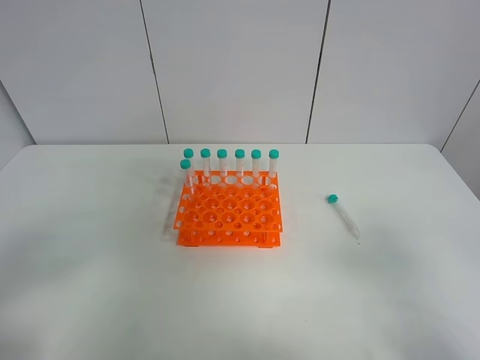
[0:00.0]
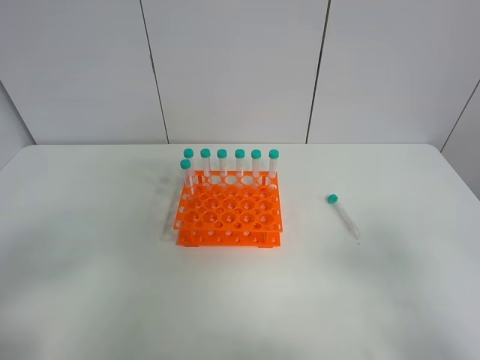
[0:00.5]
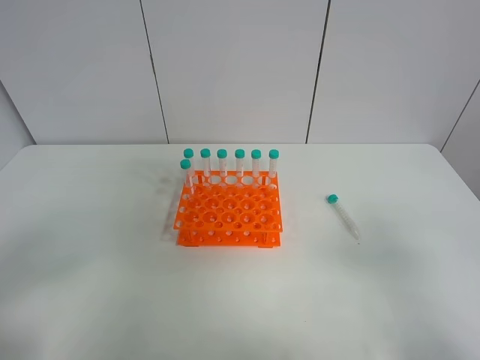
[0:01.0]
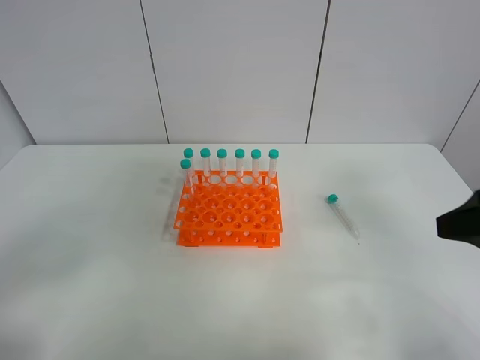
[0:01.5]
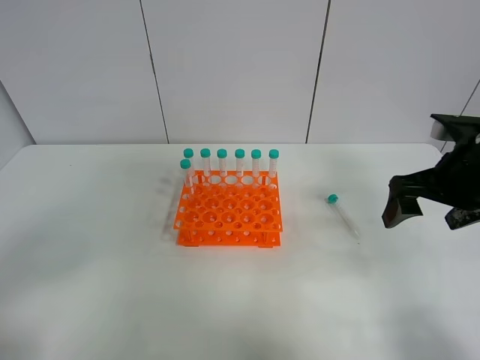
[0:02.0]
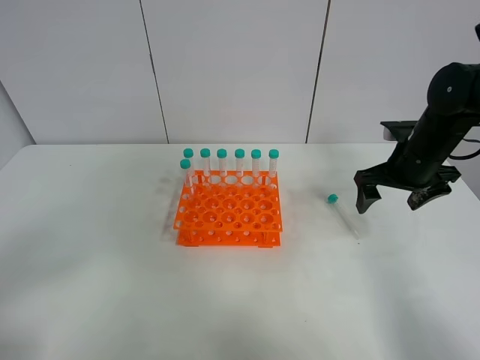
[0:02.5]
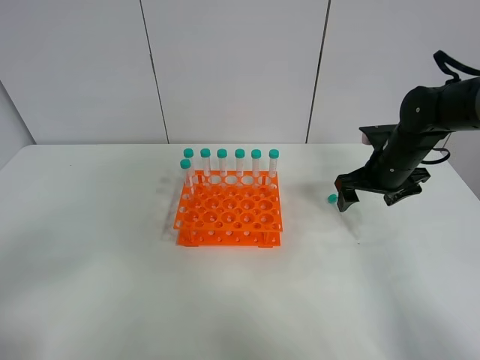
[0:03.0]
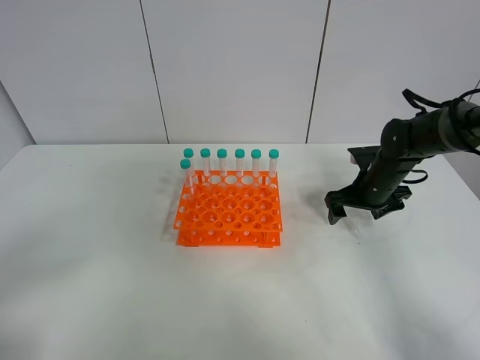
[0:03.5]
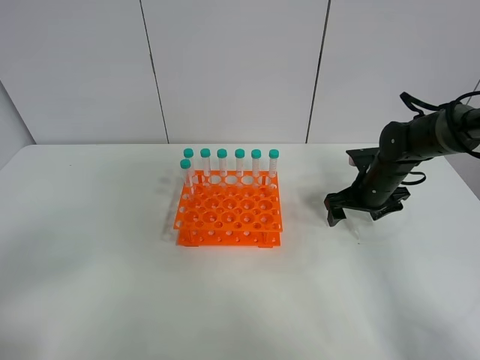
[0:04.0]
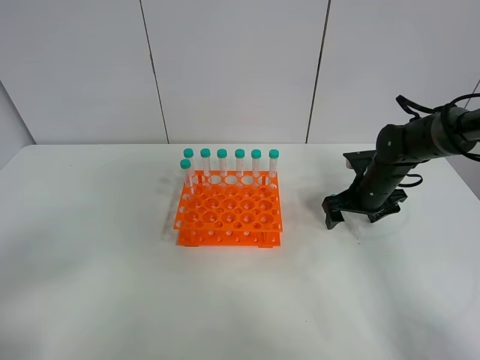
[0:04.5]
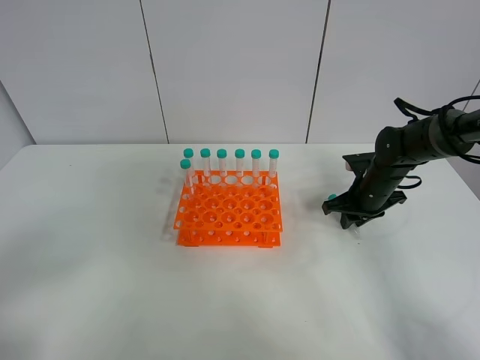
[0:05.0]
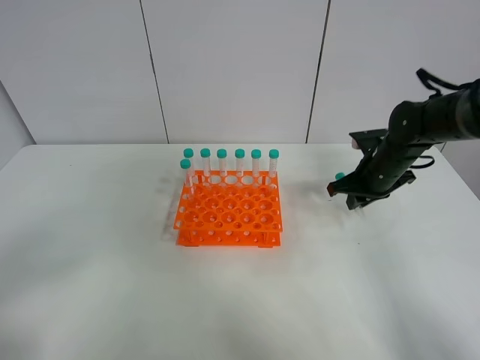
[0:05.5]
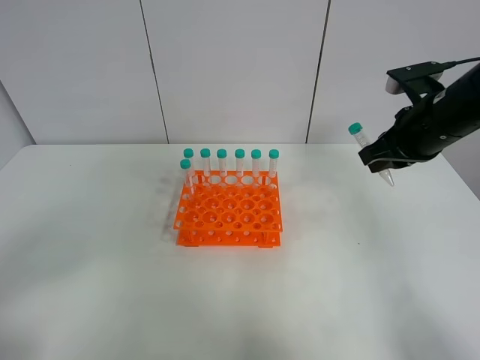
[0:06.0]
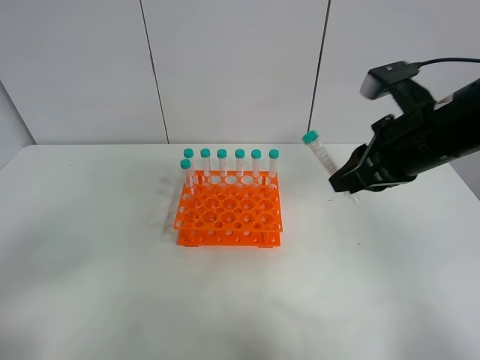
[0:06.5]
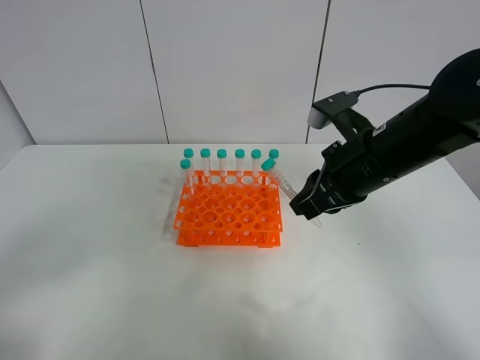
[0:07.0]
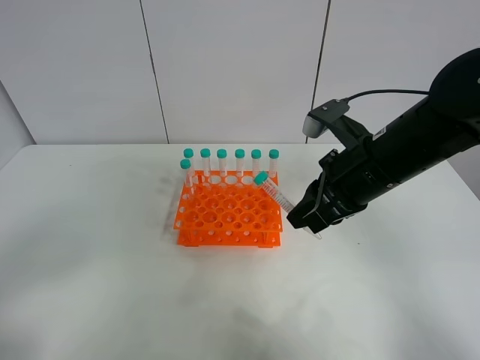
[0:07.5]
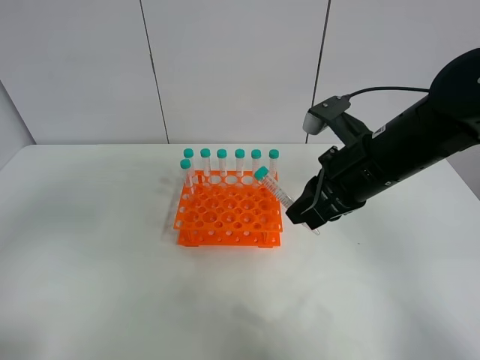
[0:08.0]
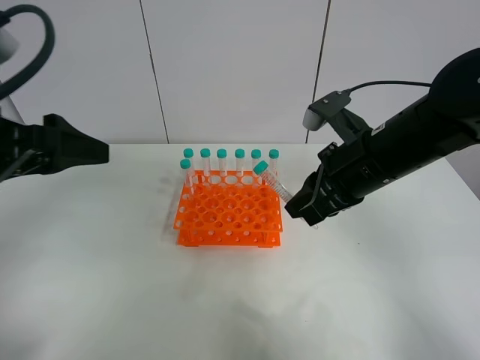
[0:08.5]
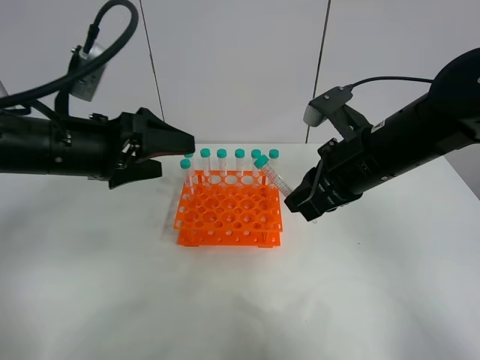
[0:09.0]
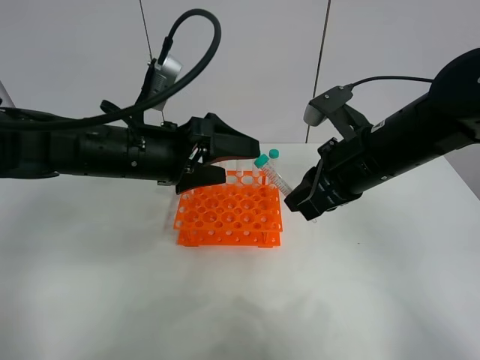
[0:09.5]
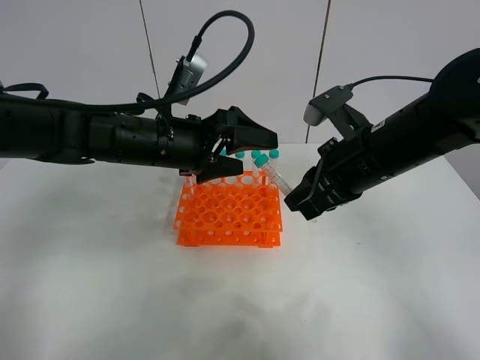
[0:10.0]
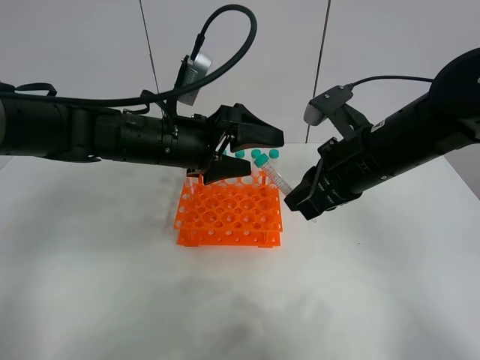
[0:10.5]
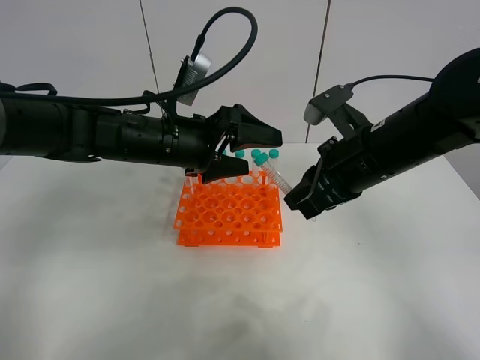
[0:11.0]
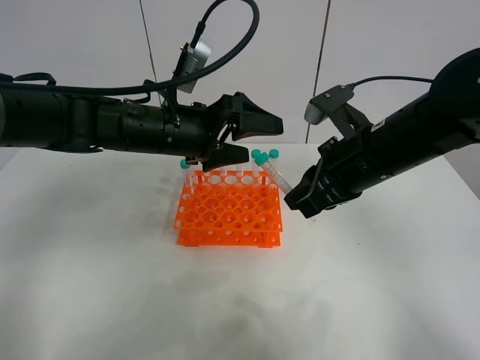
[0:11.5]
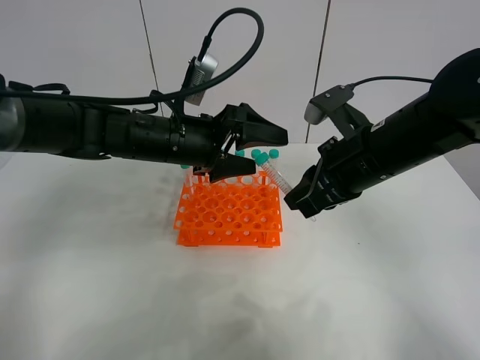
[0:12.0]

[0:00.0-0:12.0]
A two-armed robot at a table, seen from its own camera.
Task of the whole recording: Put the test tube on the table back onto the test tube rack.
Step, 0:00.0 to 0:05.5: Pick up the test tube with the right gripper.
0:00.0 to 0:02.0: The right gripper moves forward, about 25 cm.
0:02.0 to 0:04.0: The right gripper shifts about 20 cm downward and forward.
0:04.0 to 0:06.0: The right gripper is displaced upward and backward by about 20 cm, and closes up.
0:06.0 to 0:08.0: The right gripper heads to the left, covering roughly 10 cm, while the left gripper moves upward and forward, approximately 10 cm.
0:08.0 to 0:10.0: The left gripper shifts some 35 cm forward, to the right and downward.
0:10.0 to 0:12.0: The grippers make only small movements.

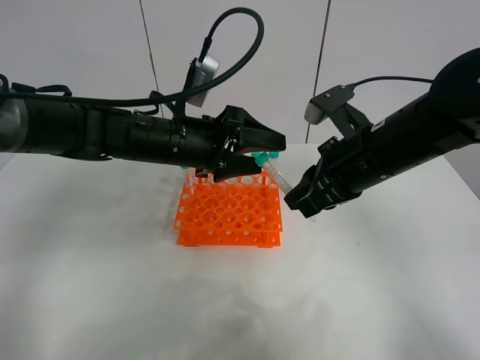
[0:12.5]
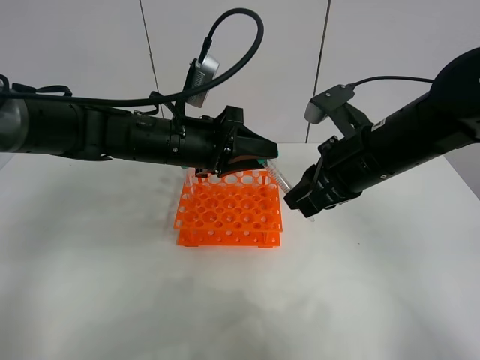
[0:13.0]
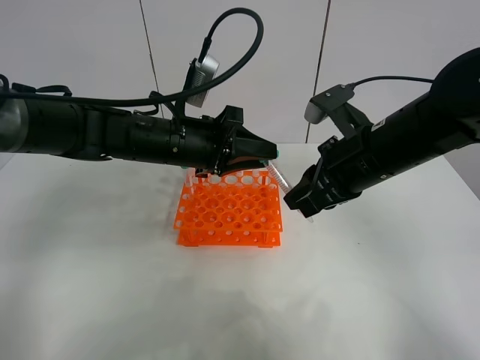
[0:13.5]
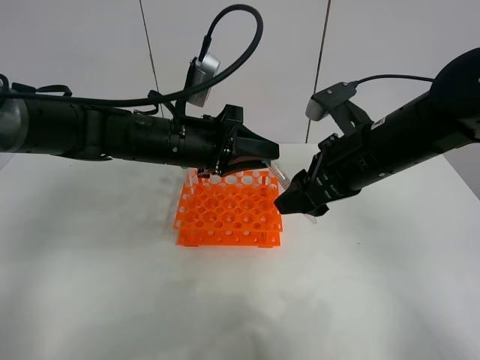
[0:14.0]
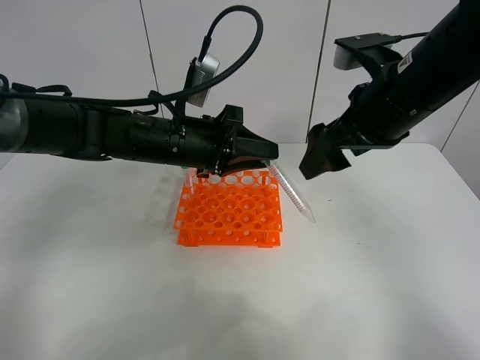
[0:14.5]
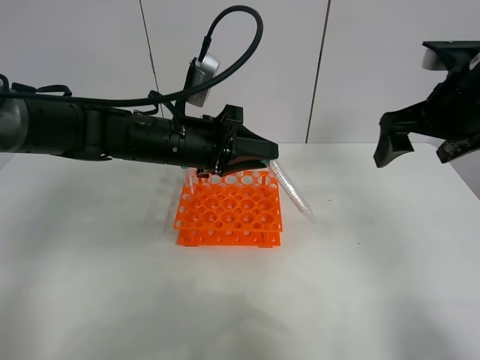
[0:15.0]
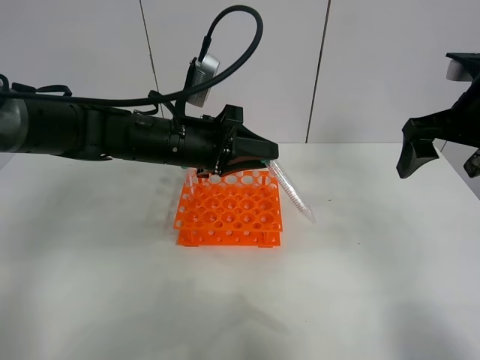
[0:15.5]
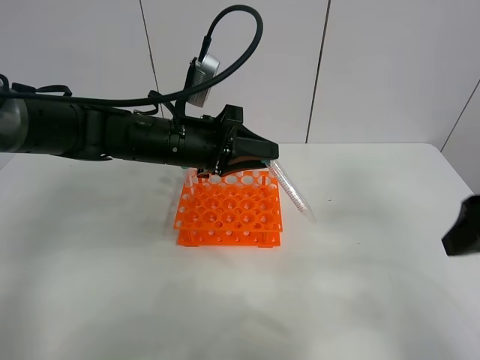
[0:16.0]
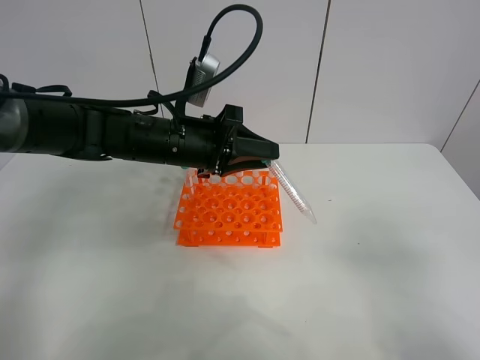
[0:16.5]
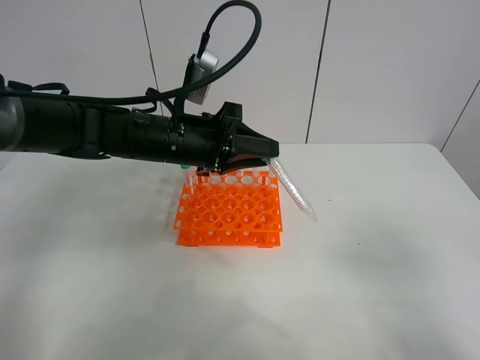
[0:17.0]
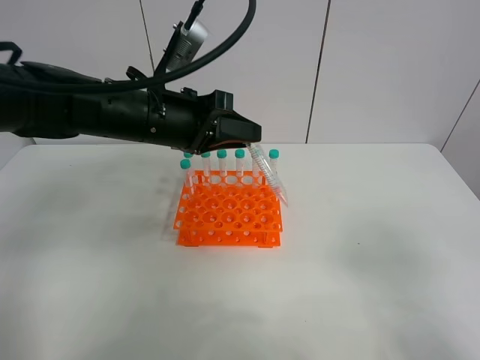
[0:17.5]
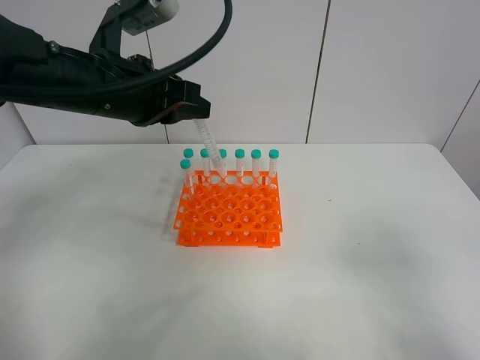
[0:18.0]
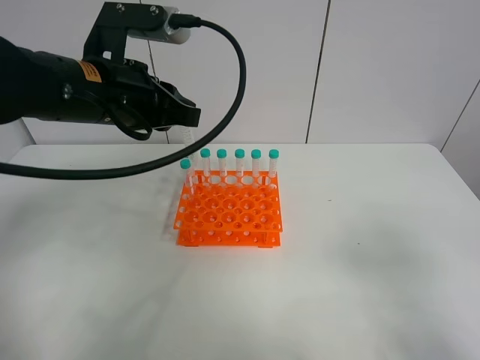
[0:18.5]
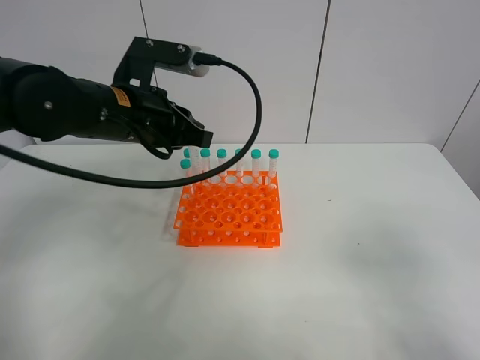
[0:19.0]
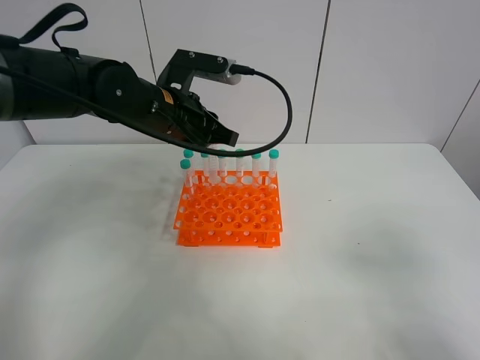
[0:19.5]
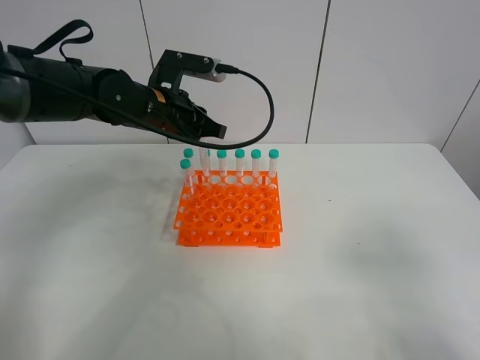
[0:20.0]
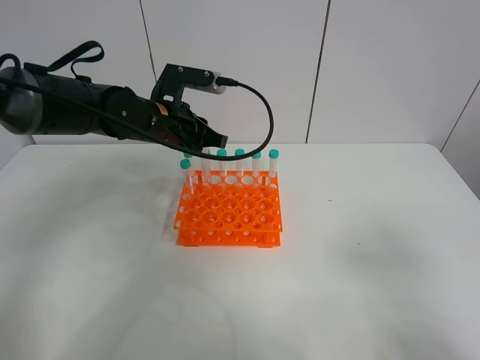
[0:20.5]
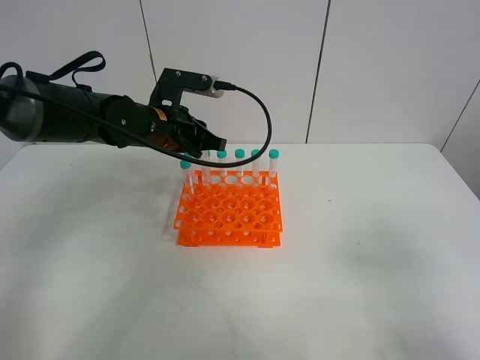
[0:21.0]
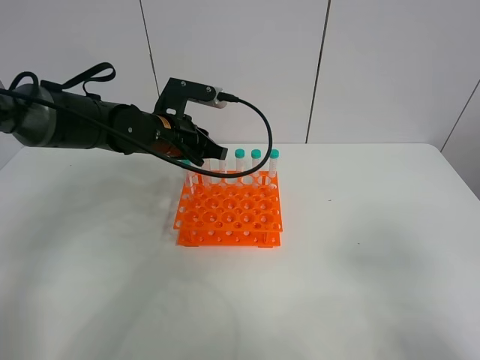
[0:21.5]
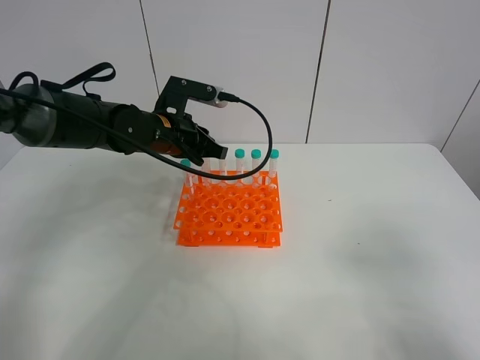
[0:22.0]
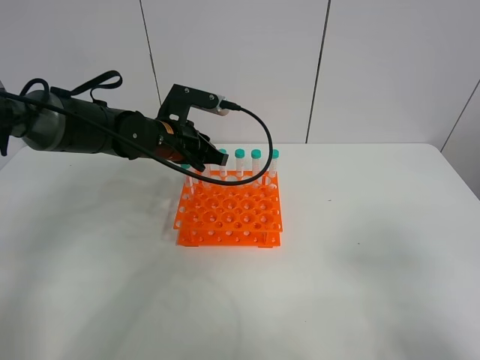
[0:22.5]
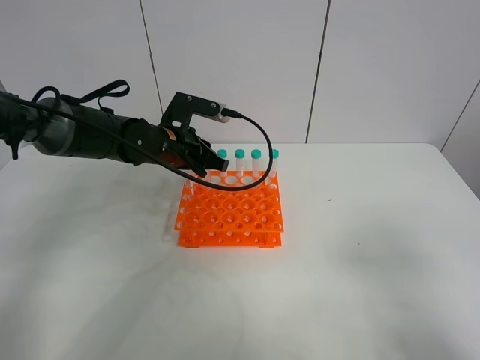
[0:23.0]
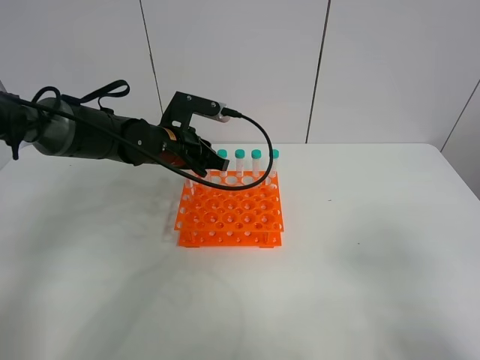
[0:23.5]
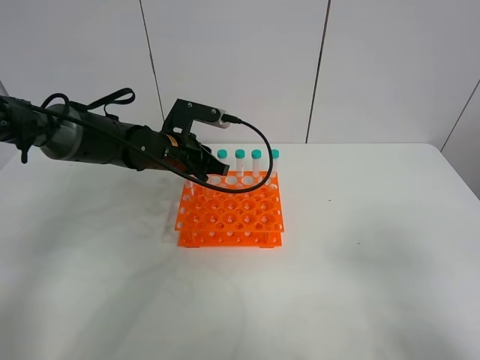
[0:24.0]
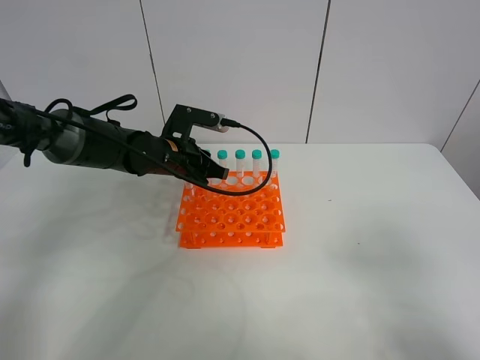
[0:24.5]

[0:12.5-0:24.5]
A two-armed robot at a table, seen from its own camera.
Task of the whole recording: Put the test tube on the table back onto the test tube rack.
Step, 0:12.5 to 0:14.5: Move the test tube from the right gripper to the left gripper.
0:12.5 to 0:14.5: The right gripper is displaced upward by about 5 cm, and opens. The left gripper closes.
0:14.5 to 0:16.5: The right gripper shifts approximately 30 cm backward and to the right.
0:16.5 to 0:18.5: The left gripper is displaced upward and to the left by some 10 cm.
0:18.5 to 0:20.5: The left gripper moves forward and downward, some 15 cm.
0:20.5 to 0:22.5: The grippers stay close to where they were, moving slightly.
0:22.5 to 0:24.5: The grippers move only a little.

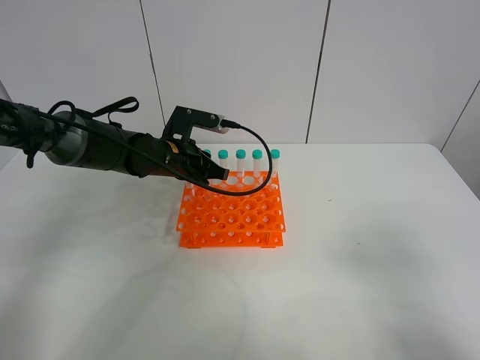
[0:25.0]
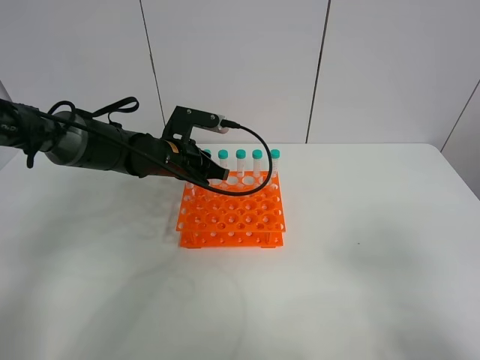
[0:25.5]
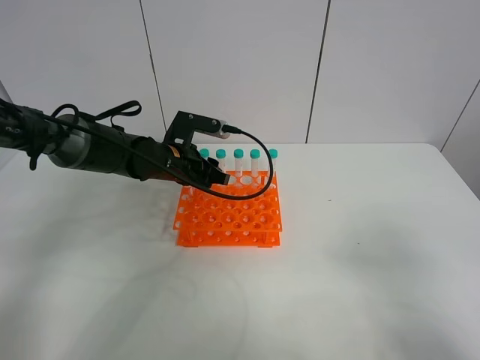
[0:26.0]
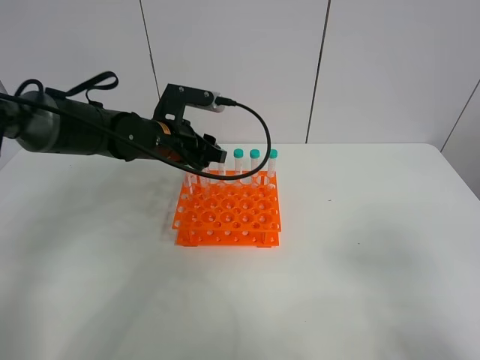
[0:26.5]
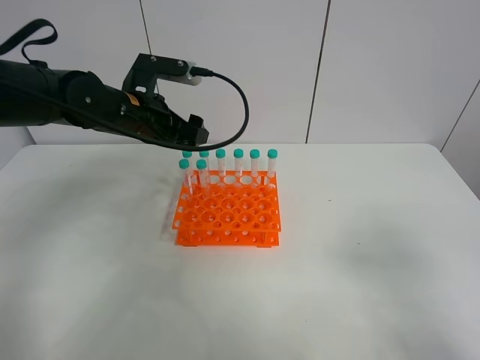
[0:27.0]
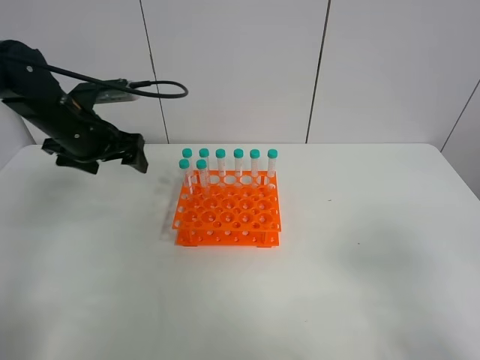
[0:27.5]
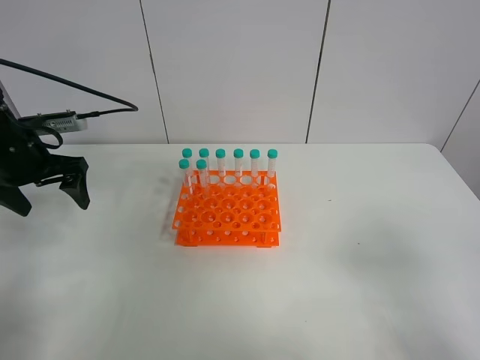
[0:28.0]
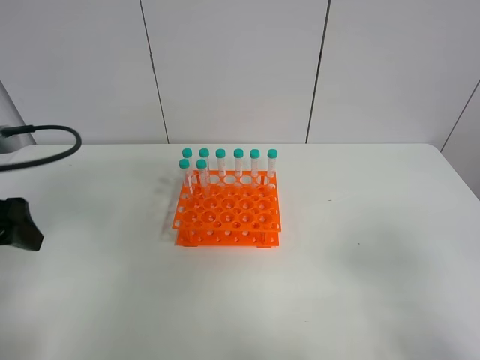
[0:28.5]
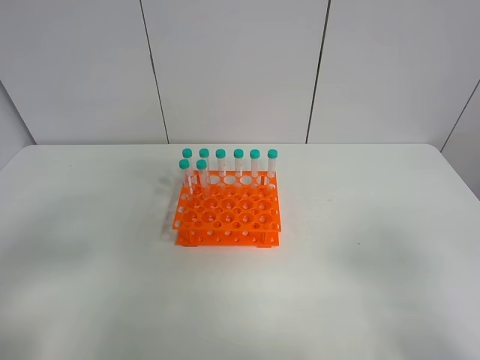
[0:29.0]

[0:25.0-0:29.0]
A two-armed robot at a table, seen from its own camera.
Task of the whole recording: Put the test tube on the table back onto the test tube rack.
Step, 0:25.0 to 0:27.5: Place the test tube on the test tube rack with the left gripper.
0:25.0 to 0:27.0: The left gripper is displaced upward by some 10 cm, and opens its fingers.
0:27.0 to 0:29.0: The left gripper shifts roughly 35 cm backward and to the left.
